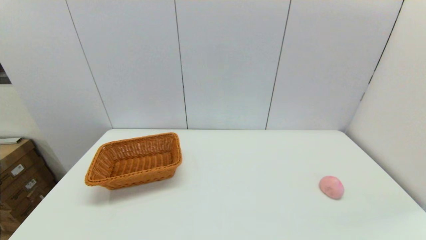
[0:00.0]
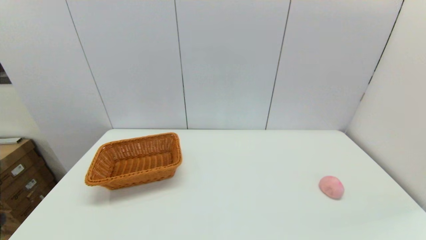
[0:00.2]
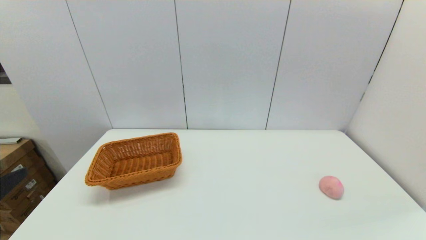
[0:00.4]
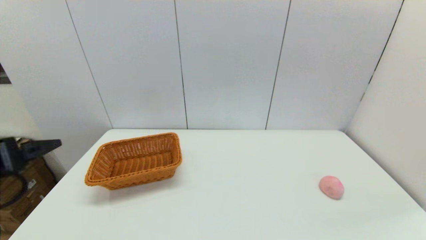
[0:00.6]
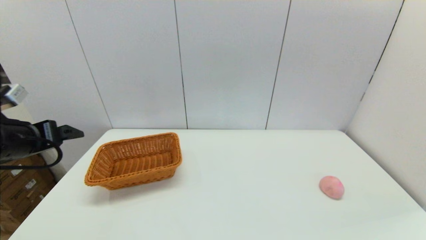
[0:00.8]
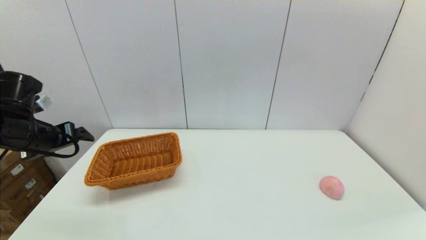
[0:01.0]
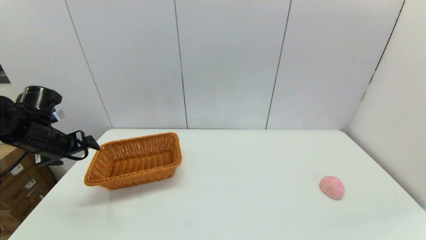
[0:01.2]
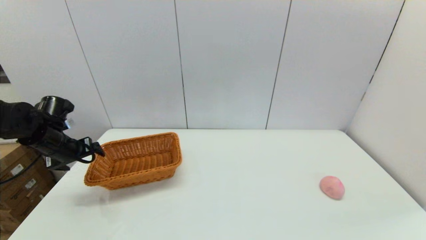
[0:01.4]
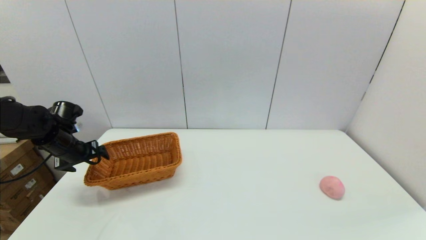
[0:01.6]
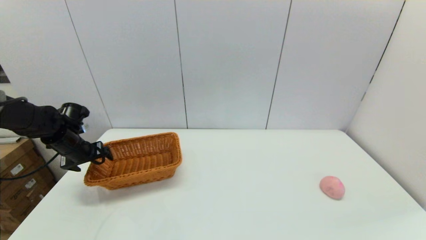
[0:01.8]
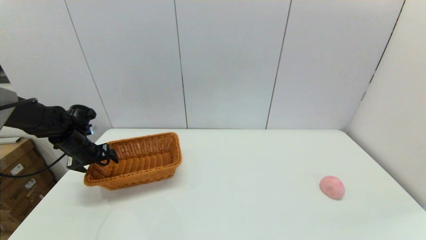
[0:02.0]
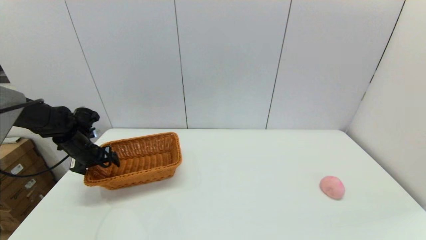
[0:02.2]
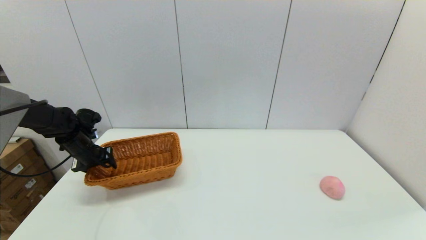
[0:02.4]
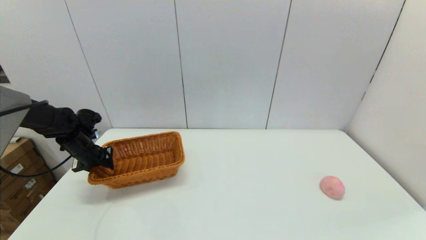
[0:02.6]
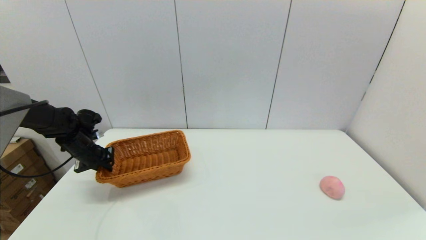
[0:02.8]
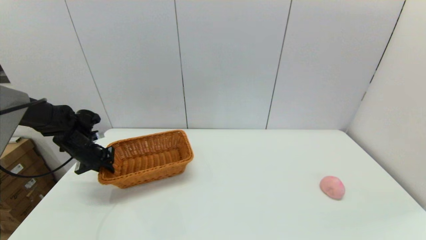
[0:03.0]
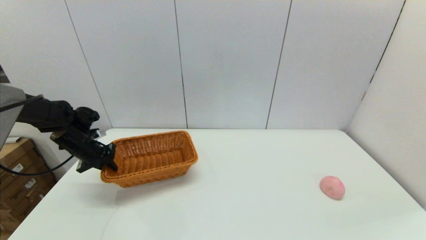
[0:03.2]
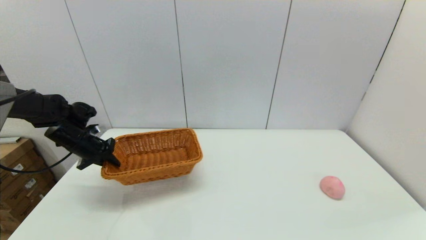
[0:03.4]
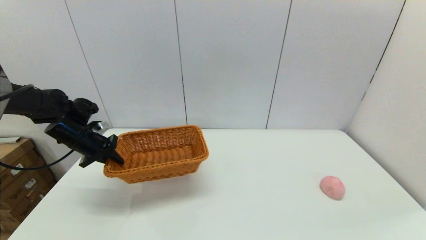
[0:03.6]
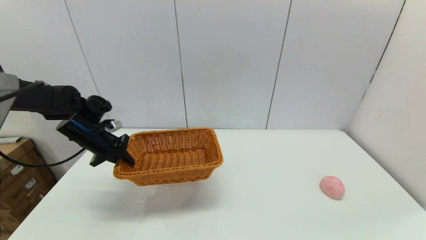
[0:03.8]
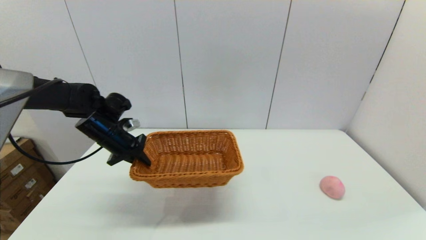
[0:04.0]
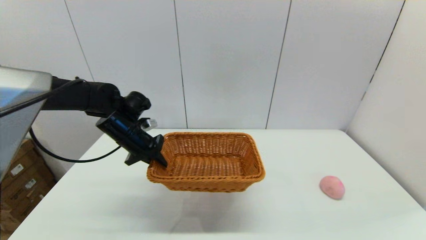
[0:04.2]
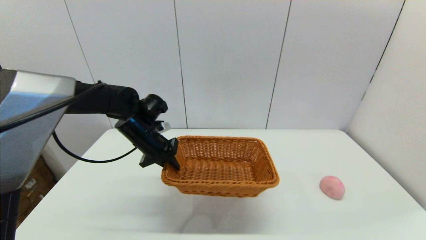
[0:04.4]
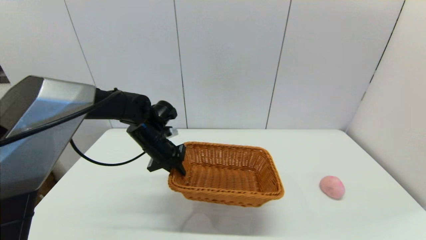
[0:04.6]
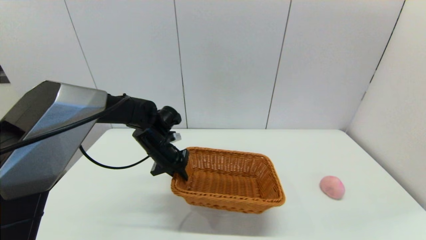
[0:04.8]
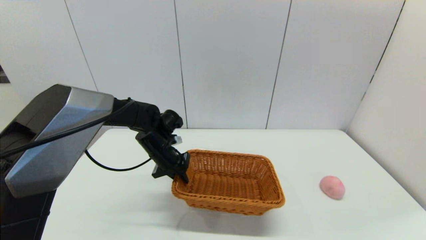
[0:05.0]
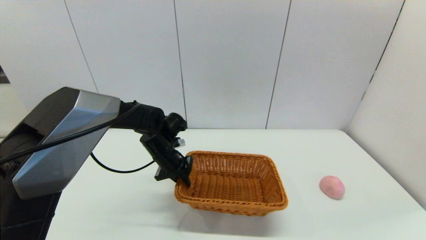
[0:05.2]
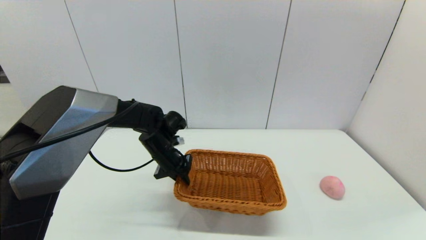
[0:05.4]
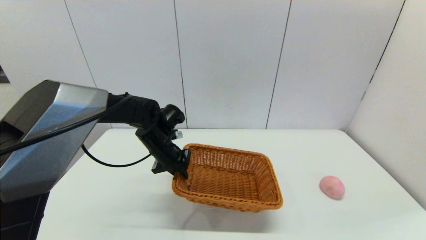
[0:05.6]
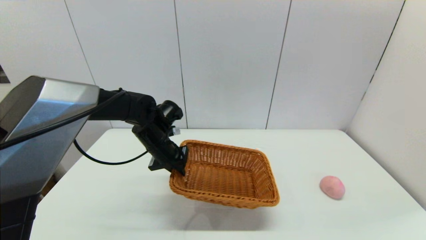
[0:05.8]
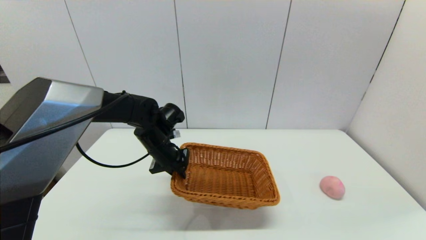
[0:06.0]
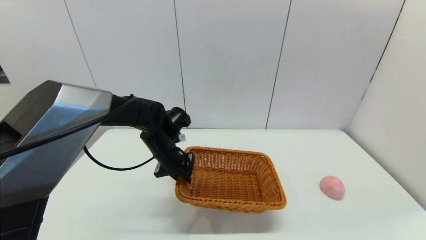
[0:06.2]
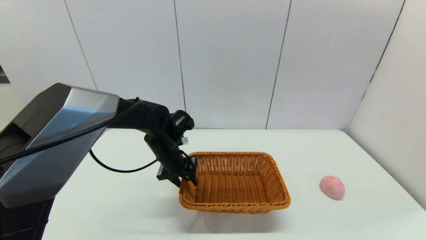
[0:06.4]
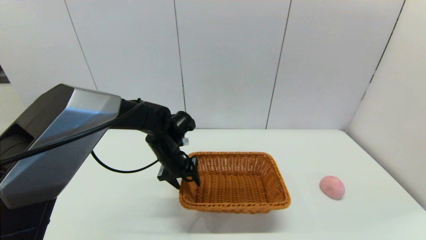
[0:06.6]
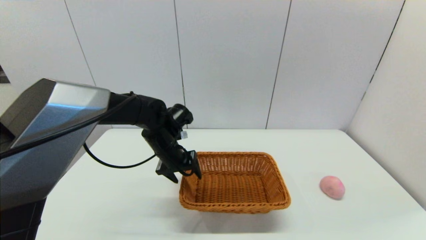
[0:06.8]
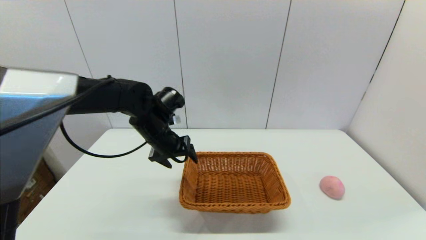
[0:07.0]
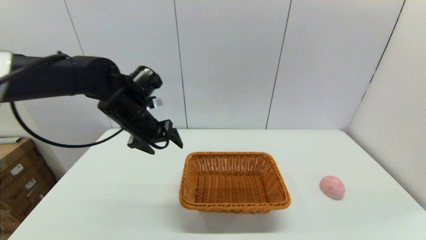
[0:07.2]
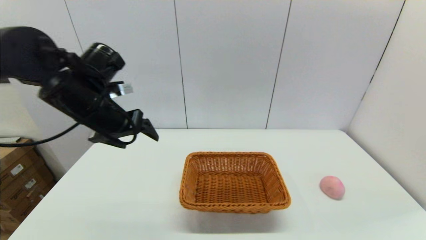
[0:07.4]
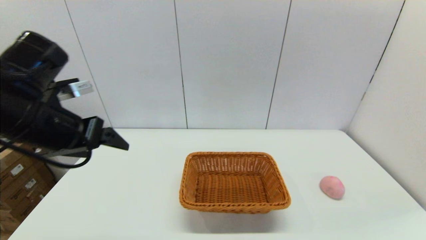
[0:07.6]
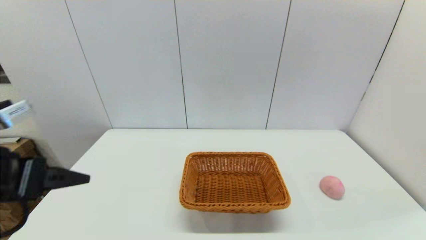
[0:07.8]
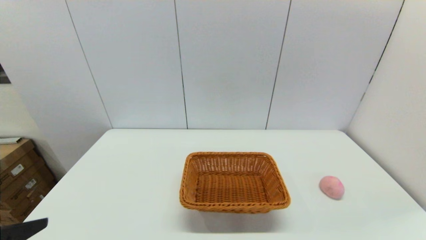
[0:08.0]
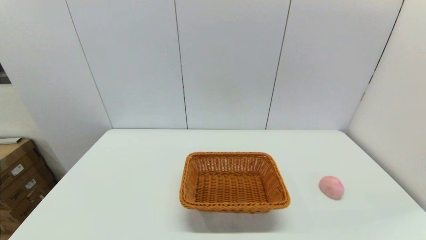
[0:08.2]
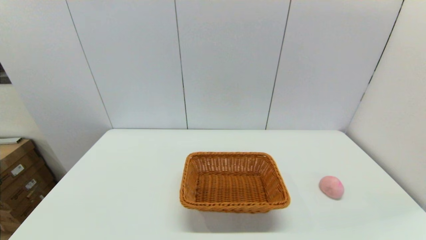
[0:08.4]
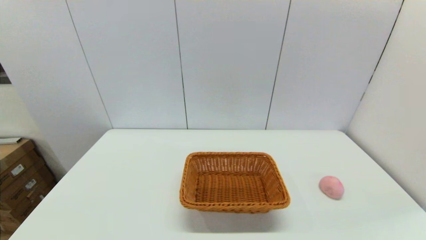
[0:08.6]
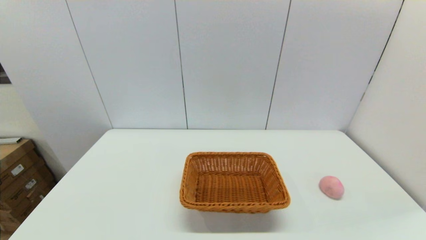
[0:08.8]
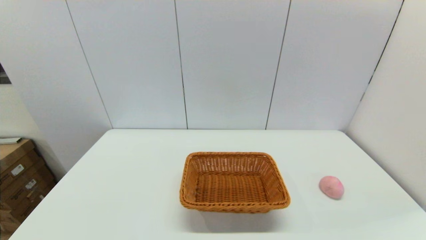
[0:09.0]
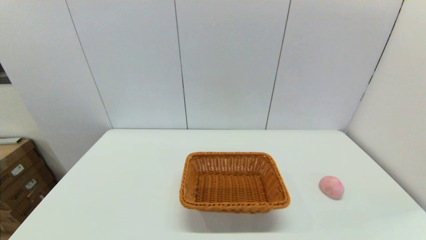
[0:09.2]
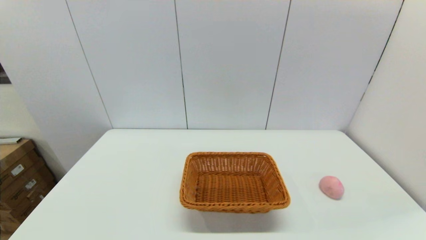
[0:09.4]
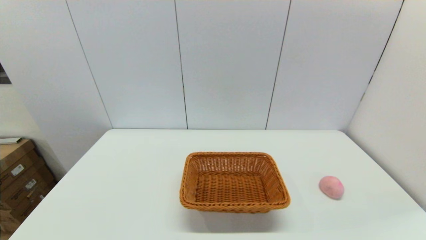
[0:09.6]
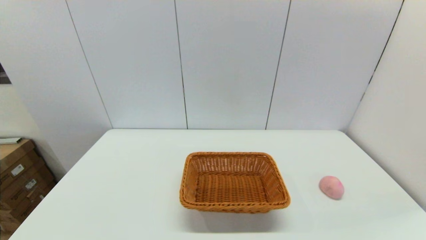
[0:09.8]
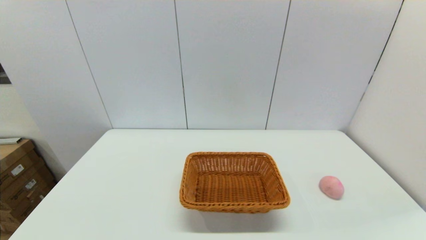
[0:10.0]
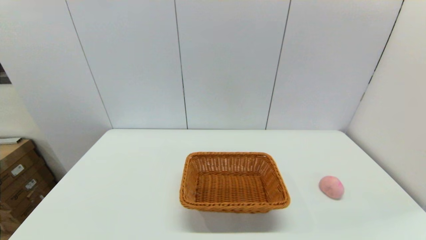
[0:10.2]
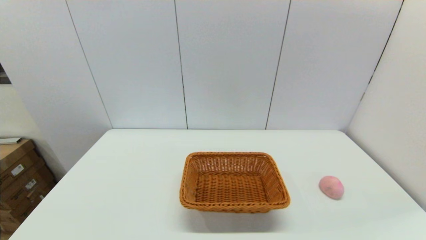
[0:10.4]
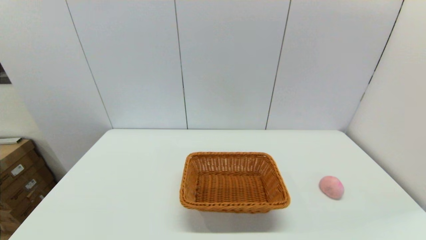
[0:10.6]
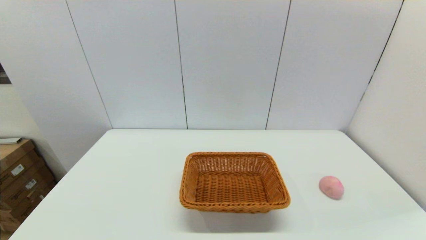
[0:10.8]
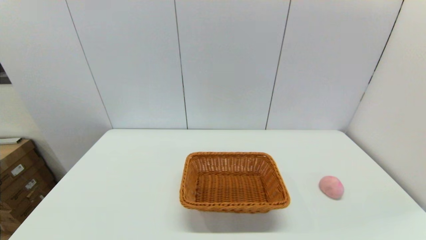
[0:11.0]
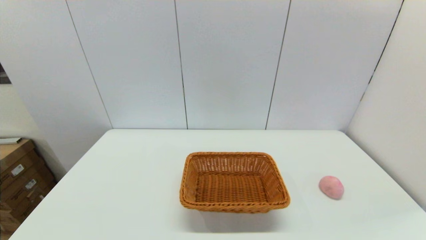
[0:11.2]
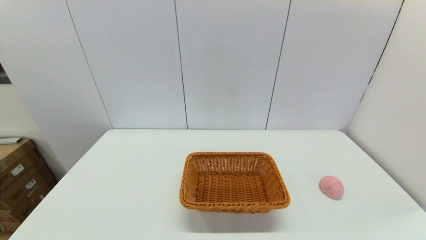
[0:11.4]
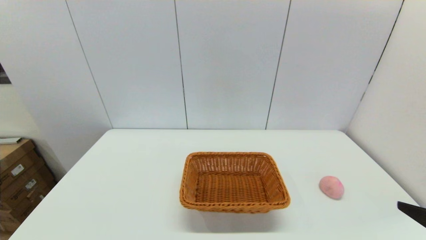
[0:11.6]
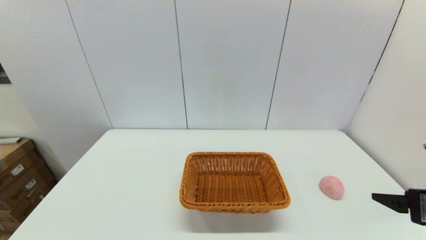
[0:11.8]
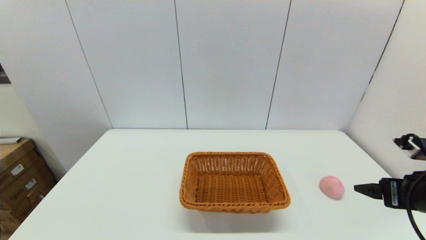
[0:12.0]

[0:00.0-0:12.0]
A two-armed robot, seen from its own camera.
Step, 0:00.0 to 0:02.8: Grasp the light basket with the left gripper.
Step, 0:03.0 to 0:06.4: Place the light basket on the middle of the table with the left gripper.
0:00.0 to 0:01.6: The left gripper moves forward, approximately 40 cm.
0:01.6 to 0:03.0: The left gripper closes.
0:03.0 to 0:04.4: The left gripper shifts some 20 cm to the right.
0:04.4 to 0:06.0: The grippers move only a little.
0:06.0 to 0:07.6: The left gripper shifts some 25 cm upward, backward and to the left, and opens up.
0:07.6 to 0:09.0: The left gripper is displaced backward and downward by some 25 cm.
0:10.4 to 0:12.0: The right gripper shifts approximately 20 cm forward.

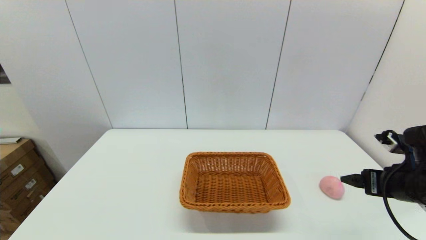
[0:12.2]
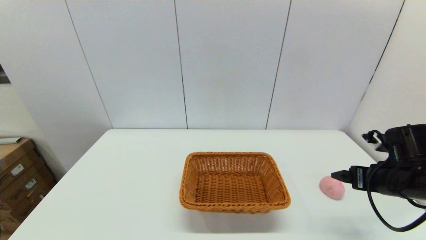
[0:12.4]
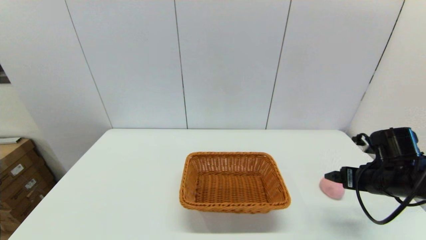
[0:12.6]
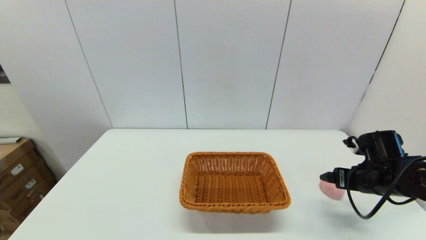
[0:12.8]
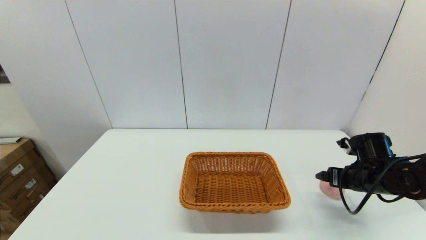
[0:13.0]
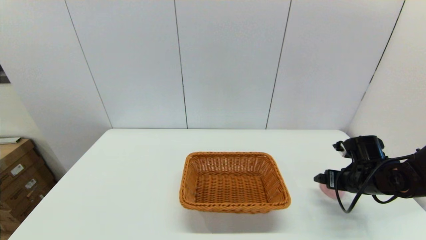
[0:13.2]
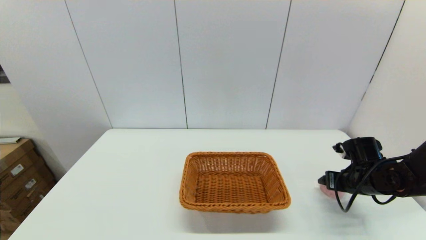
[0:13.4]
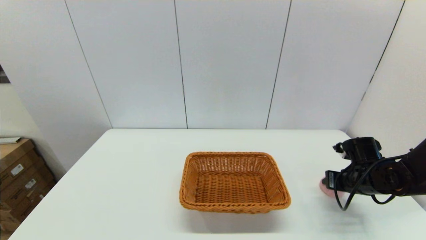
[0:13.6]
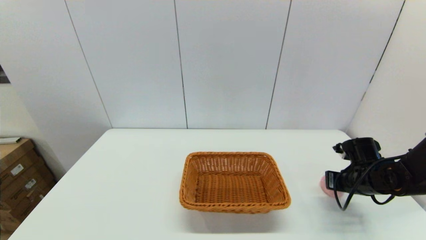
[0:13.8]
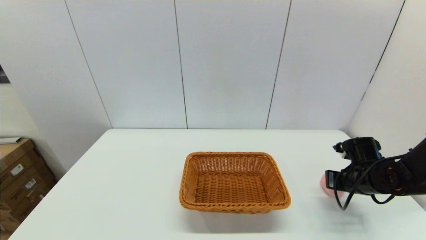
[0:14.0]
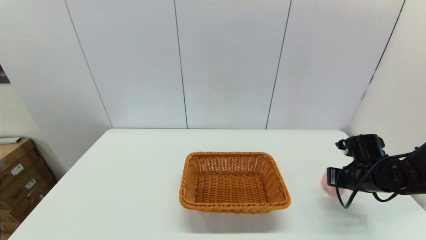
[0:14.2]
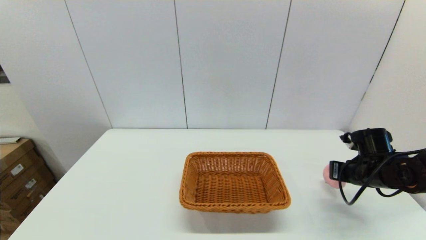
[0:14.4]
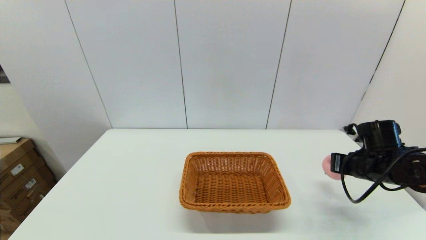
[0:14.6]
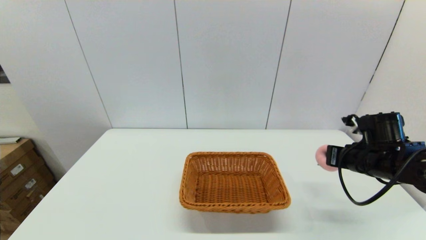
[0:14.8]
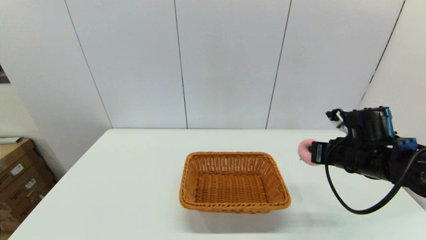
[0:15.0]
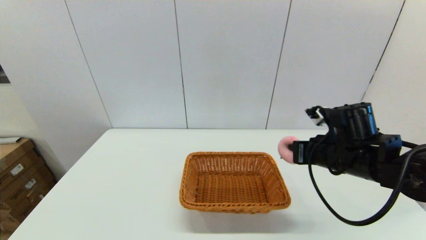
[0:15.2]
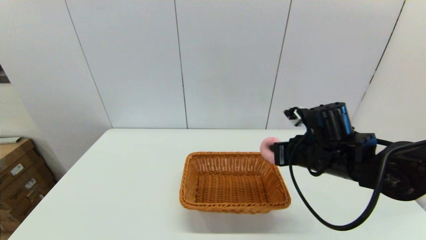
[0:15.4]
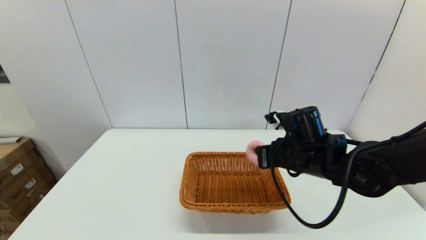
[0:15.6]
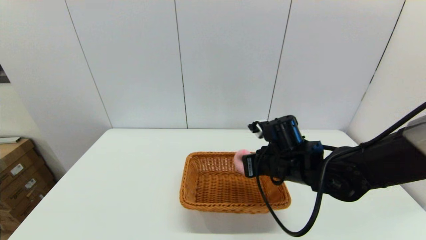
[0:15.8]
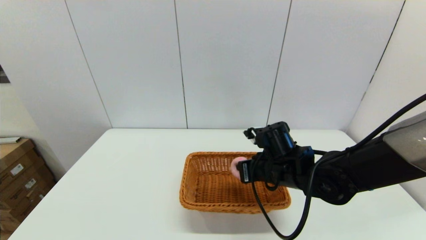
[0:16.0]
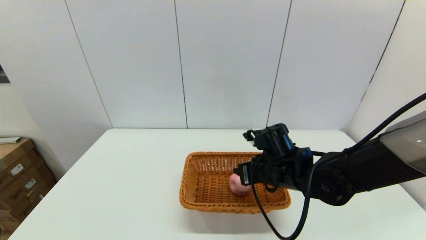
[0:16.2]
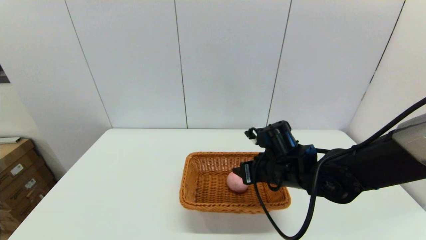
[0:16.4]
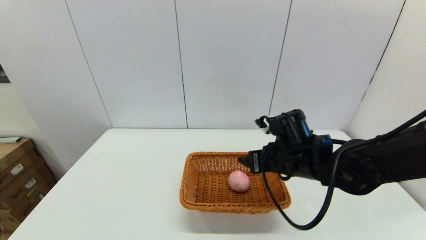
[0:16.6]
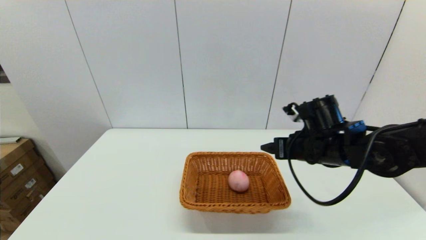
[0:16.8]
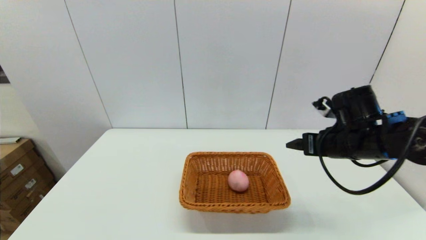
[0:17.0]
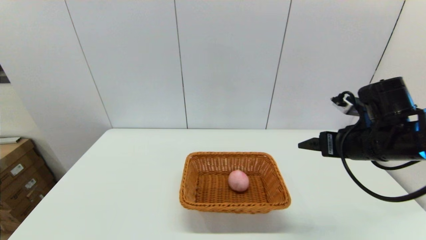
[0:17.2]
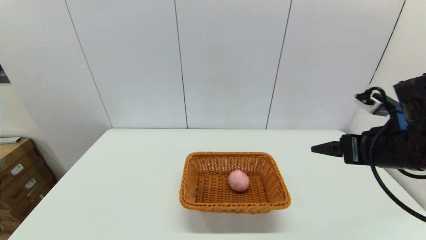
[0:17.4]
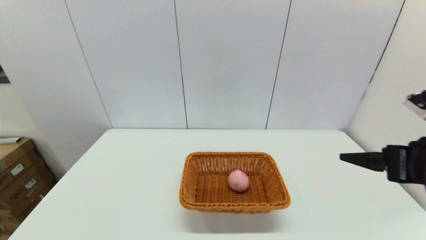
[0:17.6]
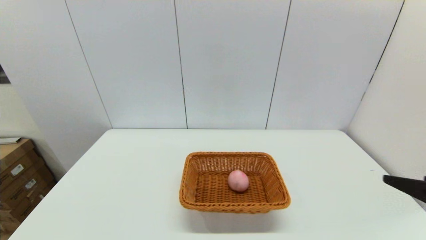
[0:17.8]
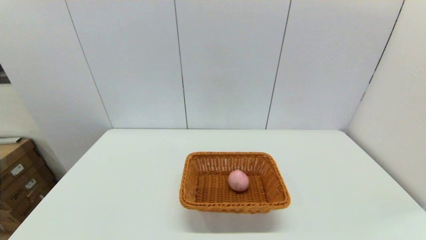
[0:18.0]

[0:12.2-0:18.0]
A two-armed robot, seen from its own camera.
Step, 0:12.2 to 0:14.2: Grasp the peach with the right gripper.
Step, 0:14.4 to 0:16.2: Place the peach into the light basket with the right gripper.
0:12.2 to 0:13.6: The right gripper goes about 15 cm downward and forward, and closes its fingers.
0:13.6 to 0:15.0: The right gripper goes roughly 15 cm upward and to the left, and closes up.
0:15.0 to 0:16.6: The right gripper heads to the left, covering approximately 10 cm, and opens.
0:16.6 to 0:18.0: The right gripper is displaced backward and to the right by approximately 30 cm.
